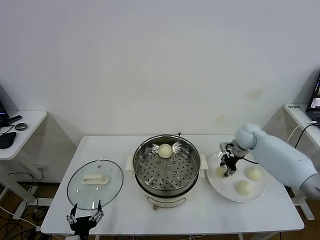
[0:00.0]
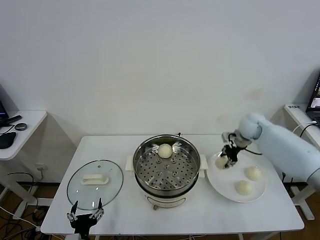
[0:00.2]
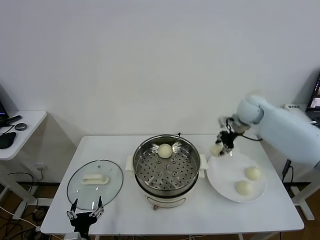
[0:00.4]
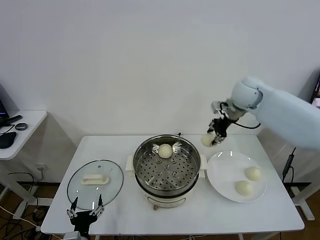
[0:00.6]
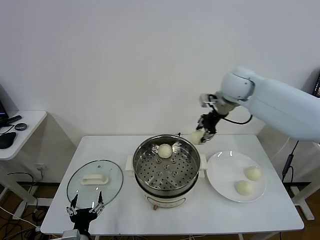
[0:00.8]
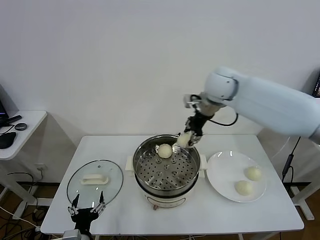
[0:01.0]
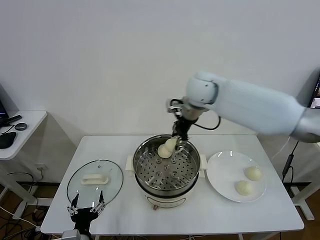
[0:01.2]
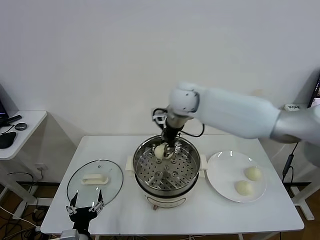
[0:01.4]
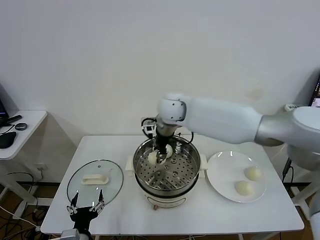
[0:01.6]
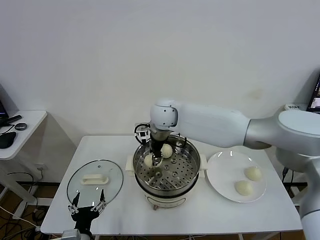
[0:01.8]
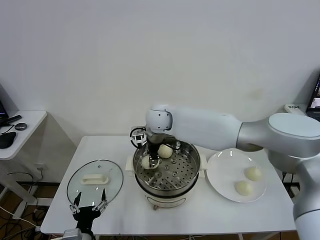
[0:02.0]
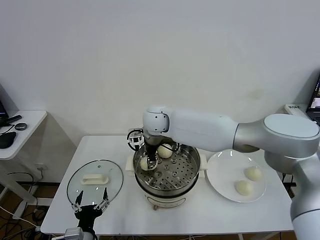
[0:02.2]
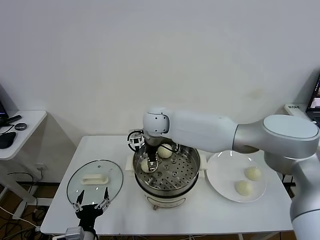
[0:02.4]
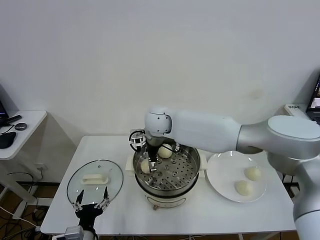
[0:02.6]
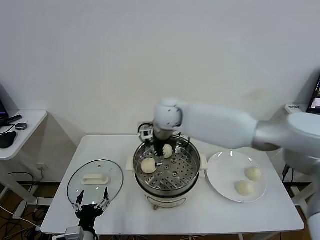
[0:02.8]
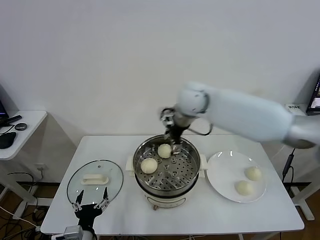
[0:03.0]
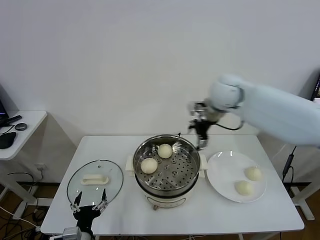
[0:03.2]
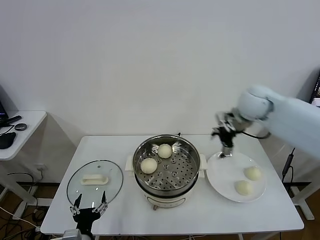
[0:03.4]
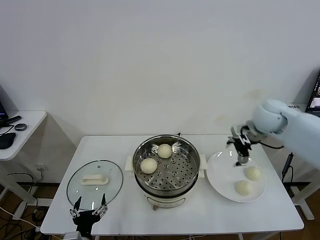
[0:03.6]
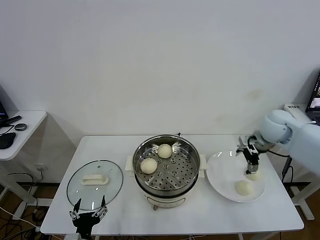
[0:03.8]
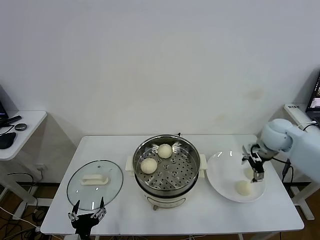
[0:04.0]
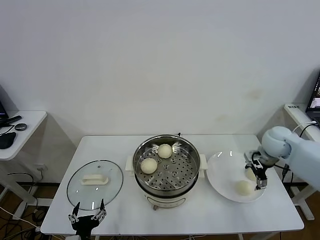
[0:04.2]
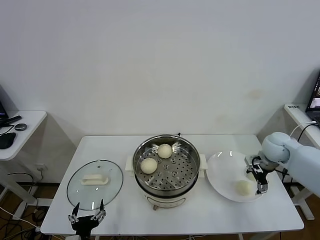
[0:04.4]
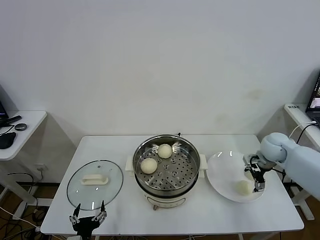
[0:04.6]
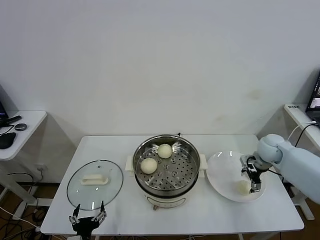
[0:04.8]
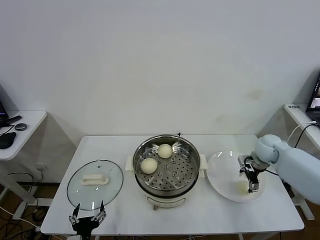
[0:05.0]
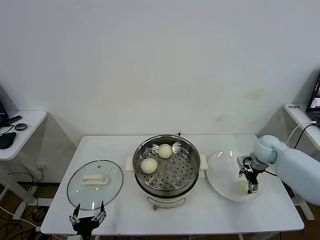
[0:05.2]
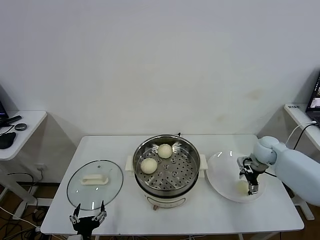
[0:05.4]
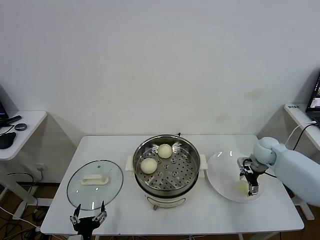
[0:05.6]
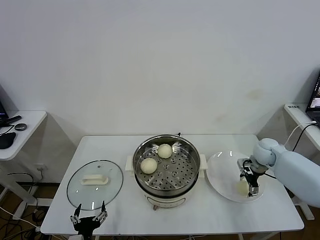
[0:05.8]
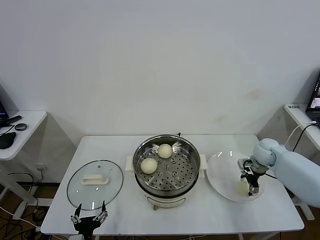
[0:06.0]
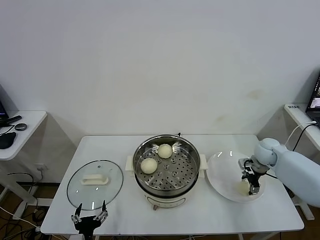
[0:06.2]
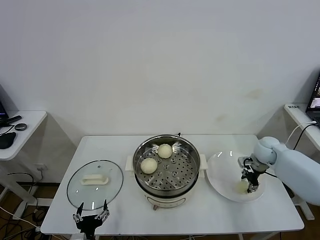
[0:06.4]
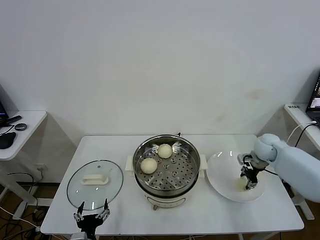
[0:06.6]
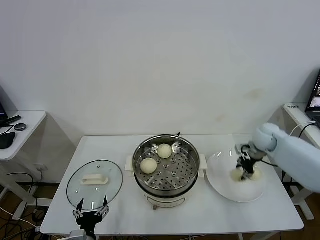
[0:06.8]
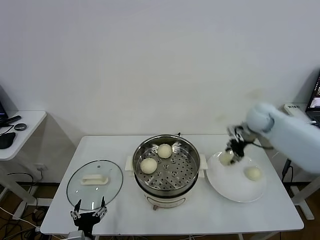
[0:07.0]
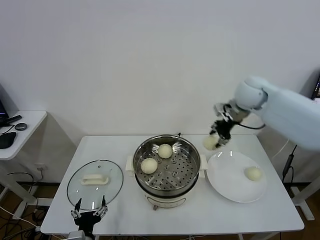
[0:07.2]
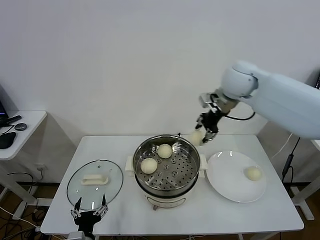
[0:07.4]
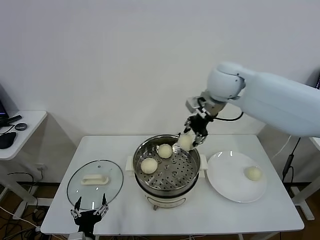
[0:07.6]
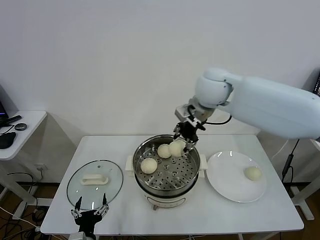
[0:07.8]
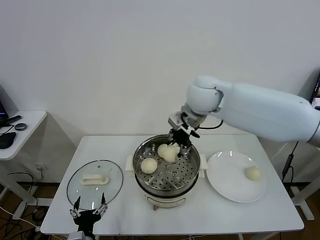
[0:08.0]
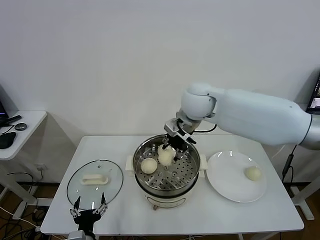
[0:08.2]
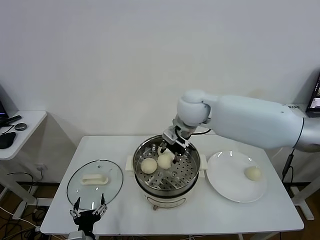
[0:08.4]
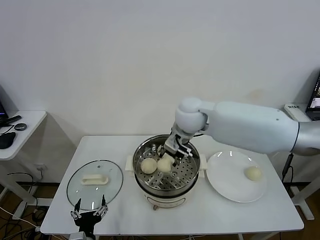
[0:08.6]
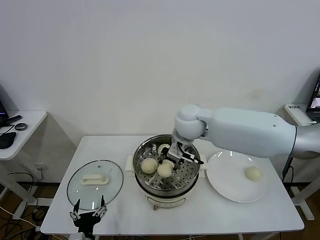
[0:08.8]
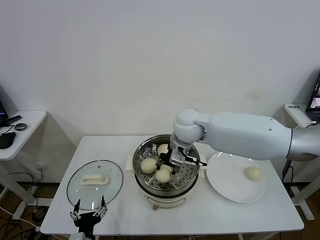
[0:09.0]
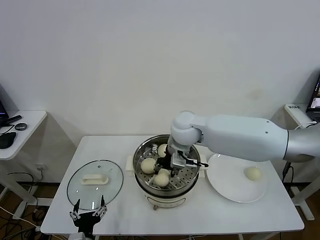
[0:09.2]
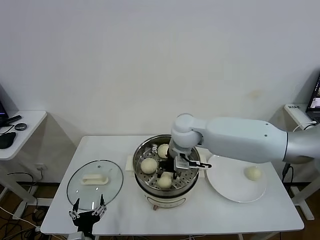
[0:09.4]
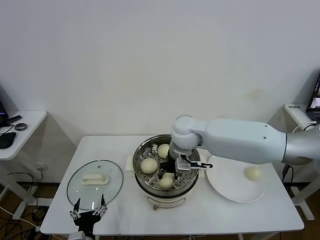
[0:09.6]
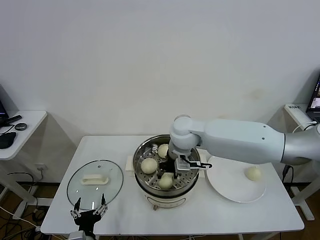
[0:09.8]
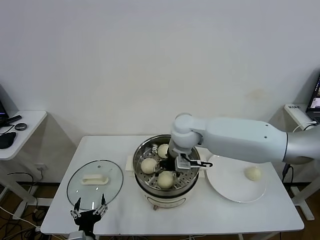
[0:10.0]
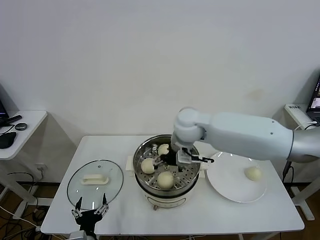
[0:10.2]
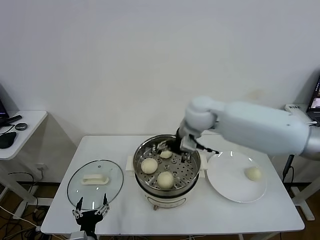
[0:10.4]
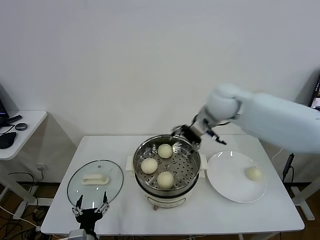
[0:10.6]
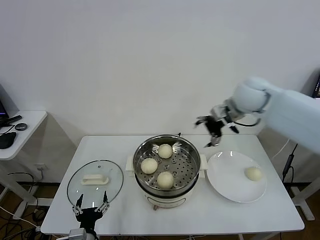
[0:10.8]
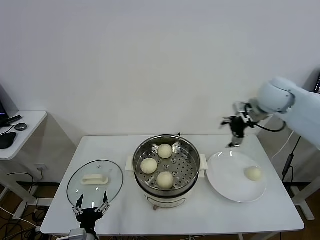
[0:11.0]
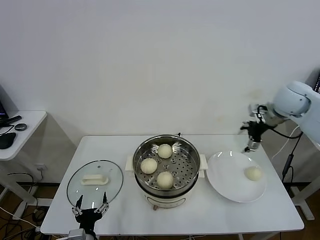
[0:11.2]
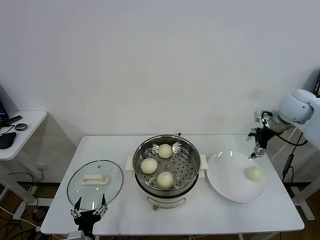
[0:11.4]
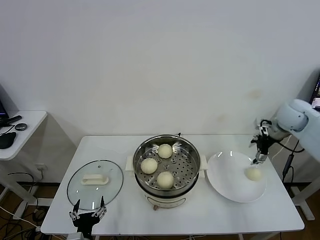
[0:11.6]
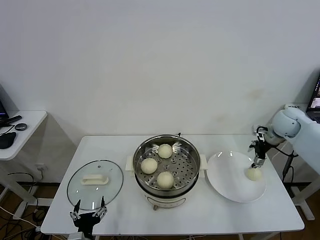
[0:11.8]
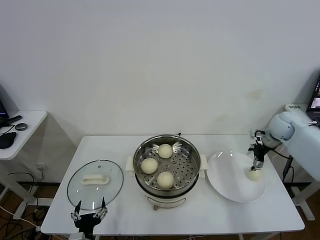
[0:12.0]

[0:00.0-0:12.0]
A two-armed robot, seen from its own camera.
Task of the whole recording: take steamed baozi put them in steamer.
Step, 0:00.0 to 0:02.4: Place the baozi on the steamer with right gripper.
Step, 0:02.8 to 0:06.4: Grasp the baozi in the plate with right gripper.
Step, 0:06.6 to 0:10.2: Place the baozi on the steamer with right gripper.
0:00.0 to 0:01.6: The right gripper heads to the left and upward, covering roughly 35 cm.
0:01.6 to 0:03.0: The right gripper goes about 10 cm to the right, and opens.
0:03.0 to 0:04.4: The right gripper heads to the right and downward, covering approximately 35 cm.
0:04.4 to 0:06.0: The right gripper shifts some 5 cm downward.
0:06.0 to 0:07.6: The right gripper is displaced upward and to the left by about 35 cm, and closes.
0:07.6 to 0:09.0: The right gripper heads downward and to the left, covering roughly 15 cm.
0:09.0 to 0:10.4: The right gripper changes place by some 5 cm, and opens.
0:10.4 to 0:12.0: The right gripper heads to the right, covering some 30 cm.

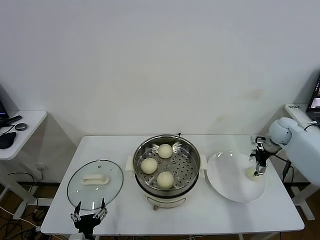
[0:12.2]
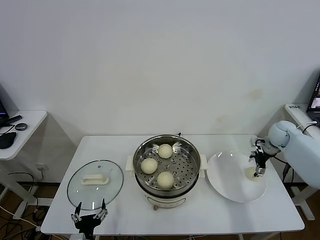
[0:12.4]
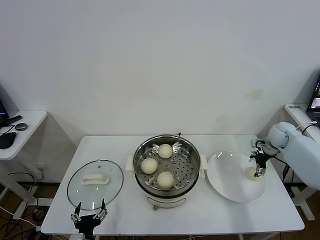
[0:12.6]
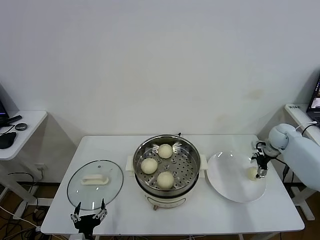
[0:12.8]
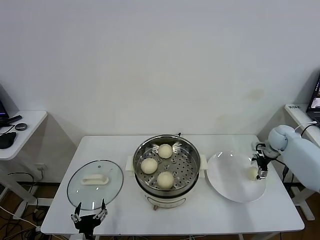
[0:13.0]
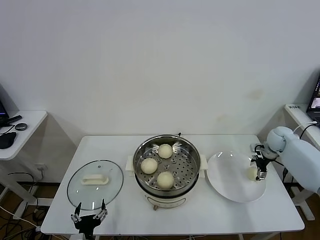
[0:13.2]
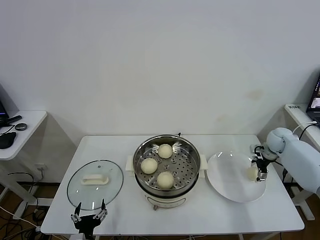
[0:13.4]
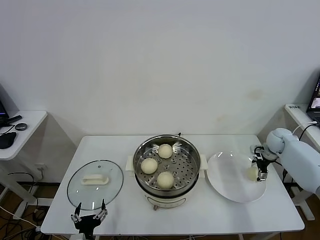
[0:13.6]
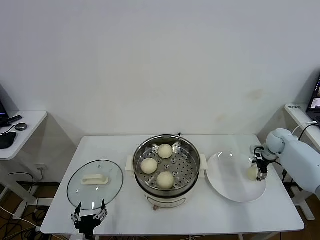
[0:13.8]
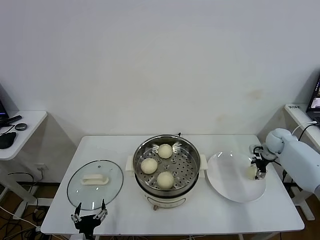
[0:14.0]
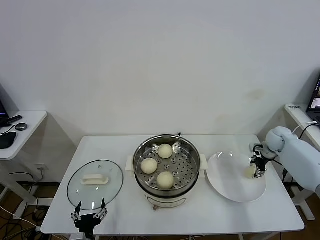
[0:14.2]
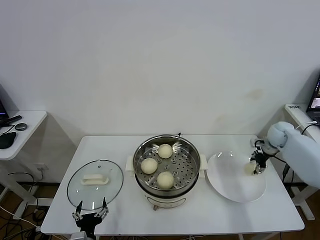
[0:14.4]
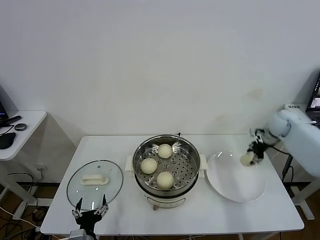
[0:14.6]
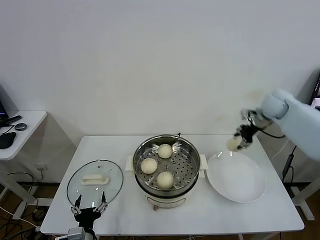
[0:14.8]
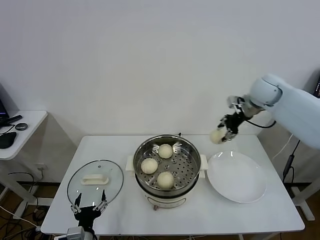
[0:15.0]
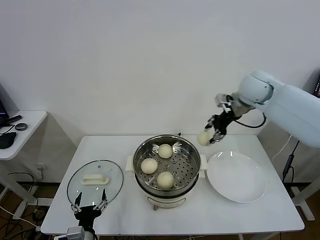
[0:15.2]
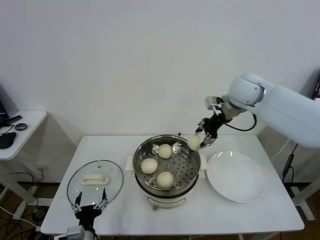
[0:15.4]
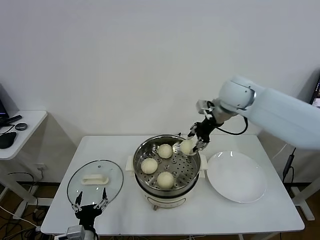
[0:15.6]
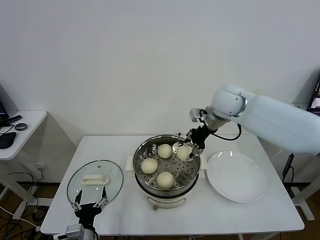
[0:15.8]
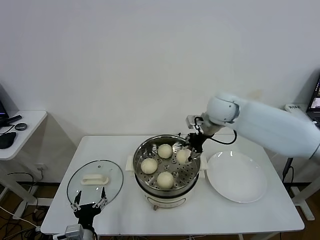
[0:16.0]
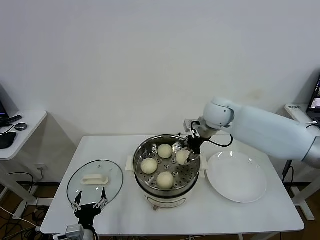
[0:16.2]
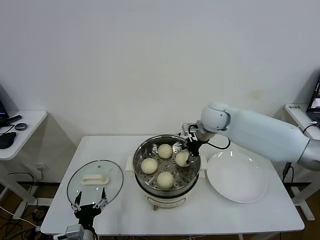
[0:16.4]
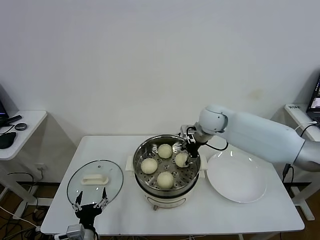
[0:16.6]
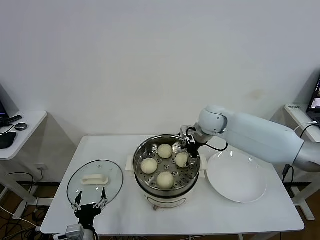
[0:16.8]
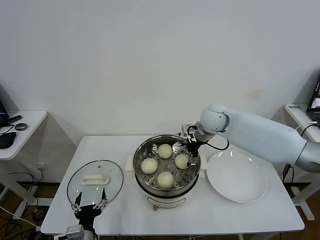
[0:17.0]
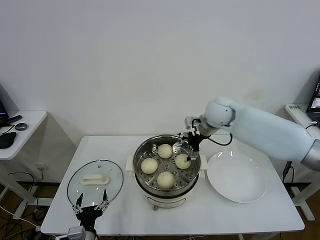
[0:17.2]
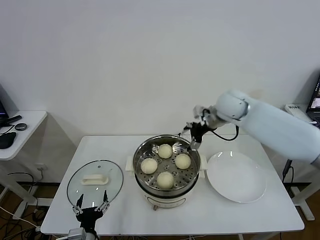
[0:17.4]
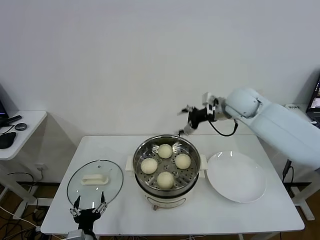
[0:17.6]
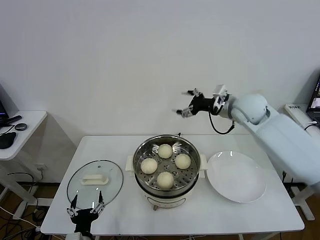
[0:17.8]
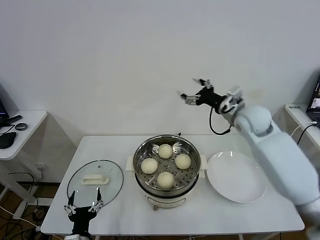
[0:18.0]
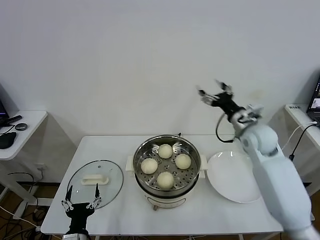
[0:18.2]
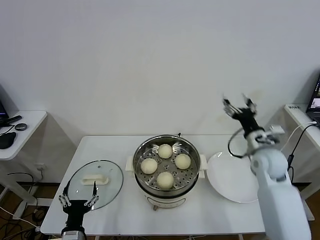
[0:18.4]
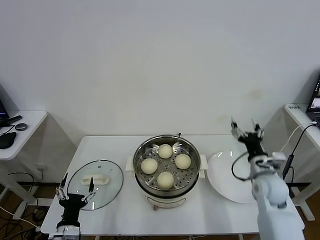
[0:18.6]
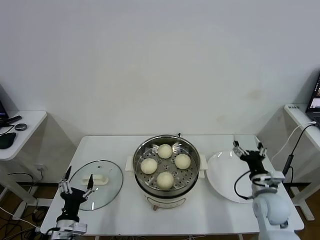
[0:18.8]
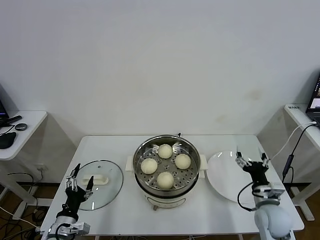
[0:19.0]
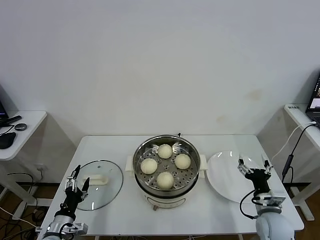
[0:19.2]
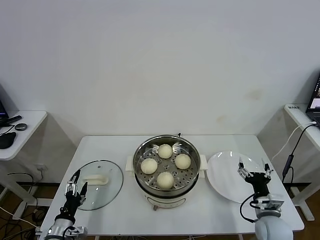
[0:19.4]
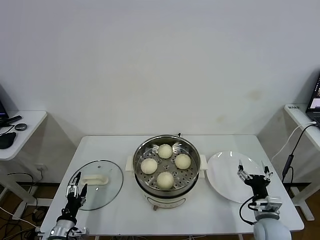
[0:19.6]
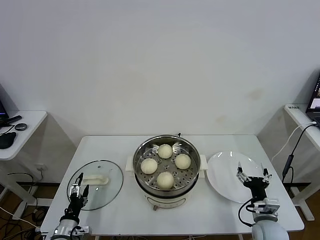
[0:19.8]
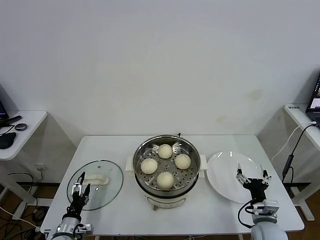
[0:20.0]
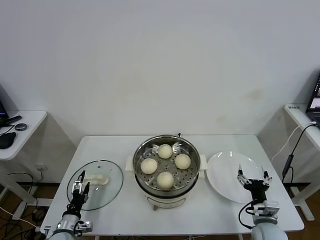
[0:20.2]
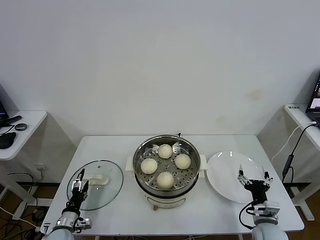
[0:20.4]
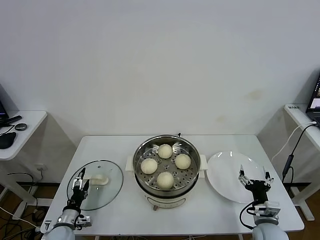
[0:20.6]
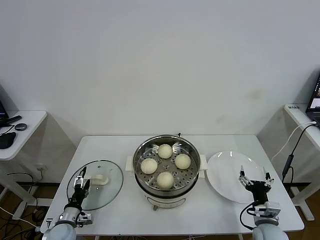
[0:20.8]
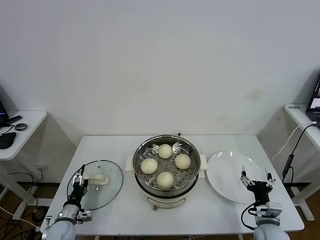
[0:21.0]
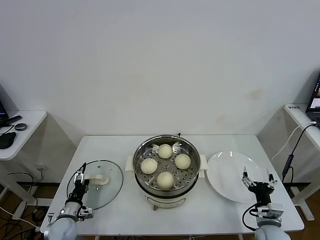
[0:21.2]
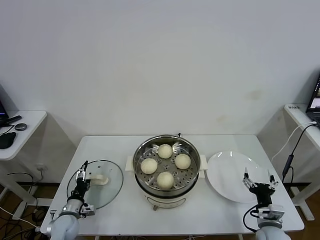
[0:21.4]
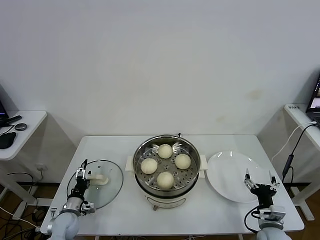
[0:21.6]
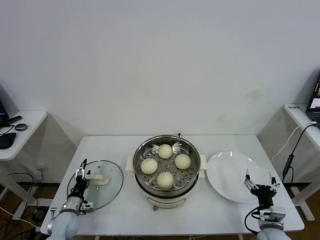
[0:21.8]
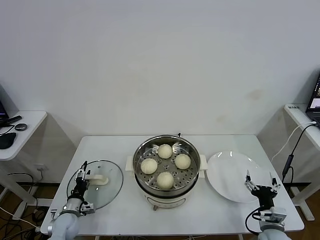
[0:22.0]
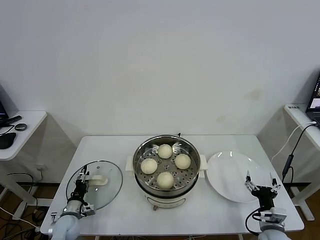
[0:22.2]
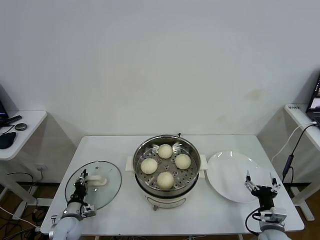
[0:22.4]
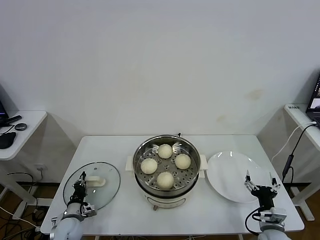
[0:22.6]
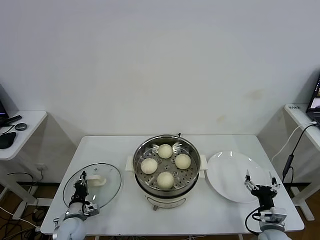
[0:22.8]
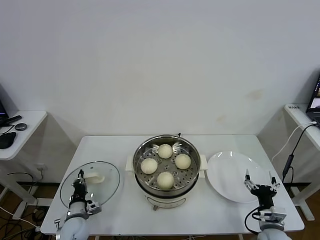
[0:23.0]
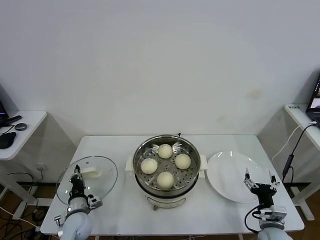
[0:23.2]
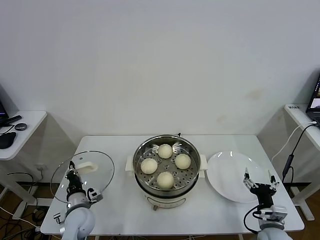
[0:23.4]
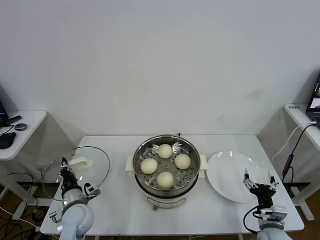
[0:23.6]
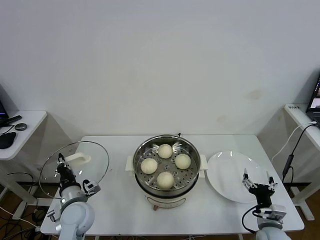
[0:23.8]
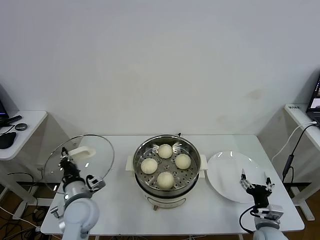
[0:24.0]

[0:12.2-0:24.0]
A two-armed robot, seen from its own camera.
Task of the whole recording: take steamed baozi put them in steamer.
Step, 0:14.2 to 0:17.2: Place the baozi on the steamer with right gripper.
Step, 0:17.4 to 0:22.6: Grasp the pot lid with left gripper.
0:12.2 to 0:13.6: The right gripper moves downward, approximately 5 cm.
0:13.6 to 0:15.2: The right gripper moves upward and to the left, approximately 30 cm, and closes its fingers.
0:15.2 to 0:16.6: The right gripper shifts approximately 15 cm to the left and downward.
0:16.6 to 0:18.2: The right gripper is displaced to the right and backward by some 15 cm, and opens.
0:18.2 to 0:19.6: The right gripper is displaced backward and downward by approximately 30 cm; the left gripper shifts about 10 cm to the left and forward.
0:19.6 to 0:21.0: The left gripper is displaced forward by approximately 5 cm.
0:21.0 to 0:22.6: The left gripper closes up.
0:22.6 to 0:24.0: The left gripper goes about 20 cm upward and to the right.
